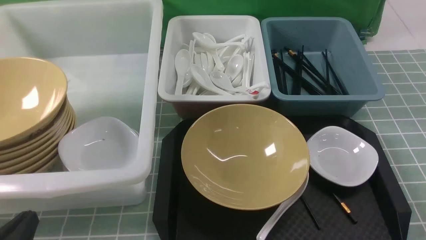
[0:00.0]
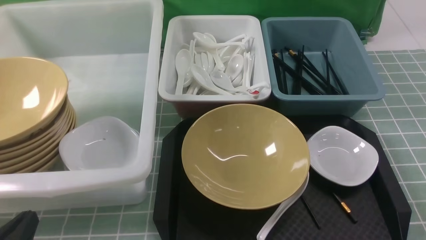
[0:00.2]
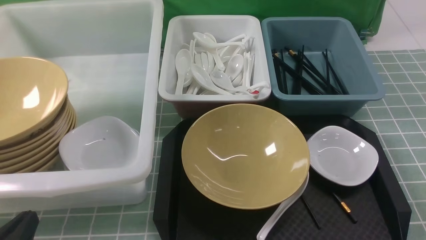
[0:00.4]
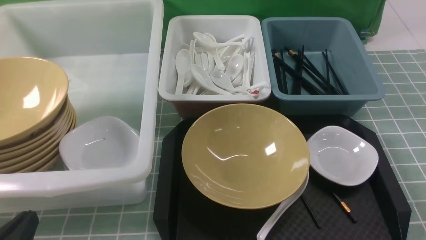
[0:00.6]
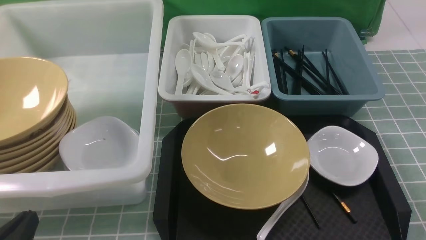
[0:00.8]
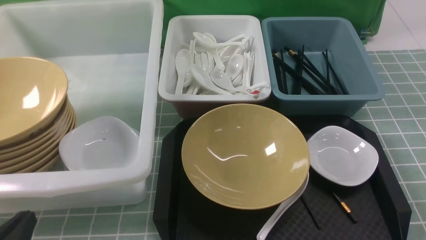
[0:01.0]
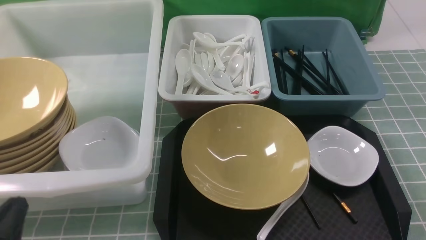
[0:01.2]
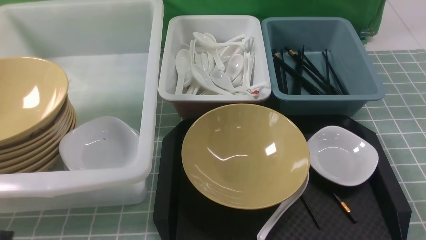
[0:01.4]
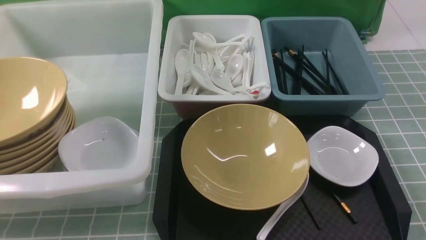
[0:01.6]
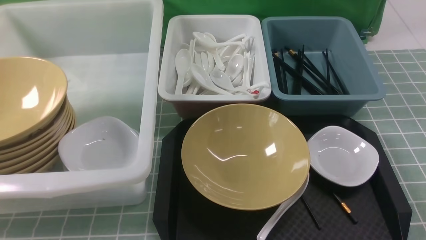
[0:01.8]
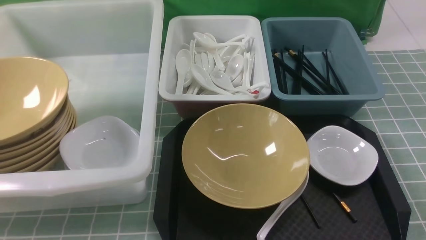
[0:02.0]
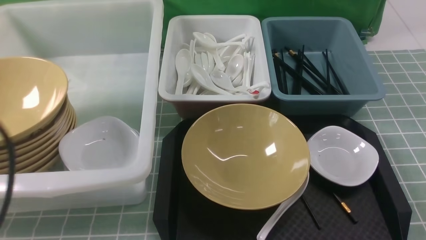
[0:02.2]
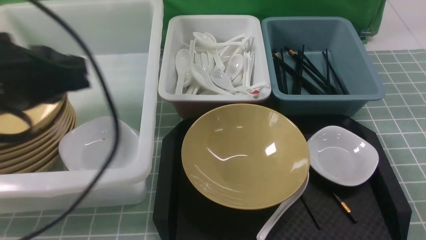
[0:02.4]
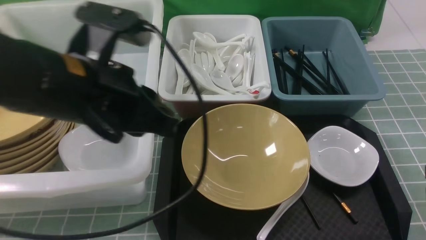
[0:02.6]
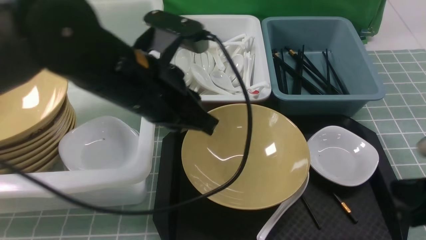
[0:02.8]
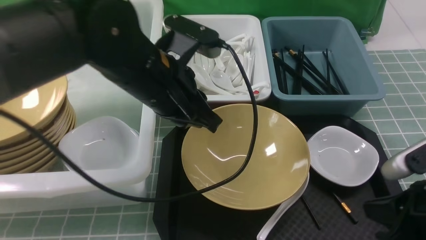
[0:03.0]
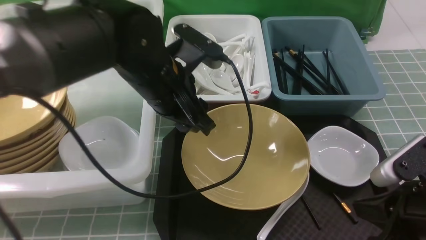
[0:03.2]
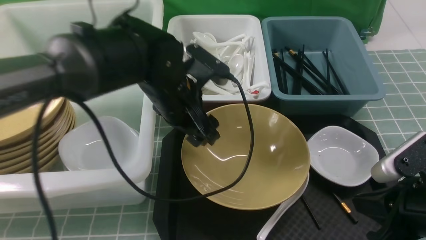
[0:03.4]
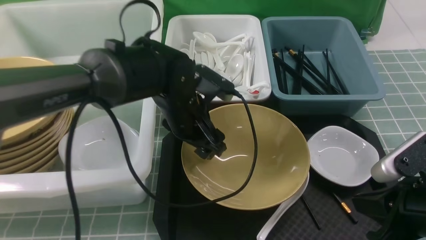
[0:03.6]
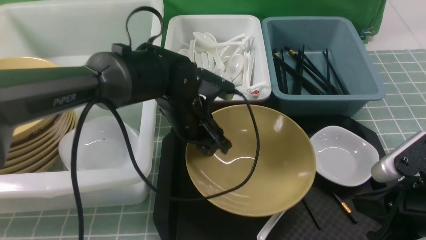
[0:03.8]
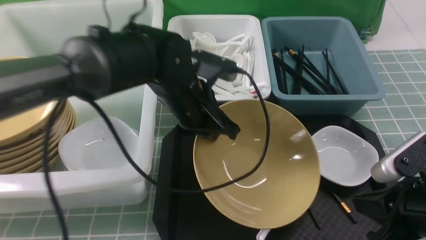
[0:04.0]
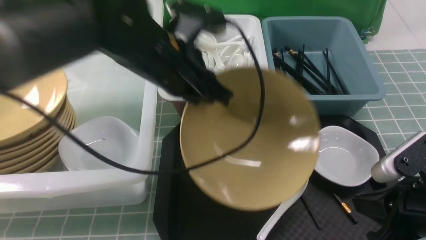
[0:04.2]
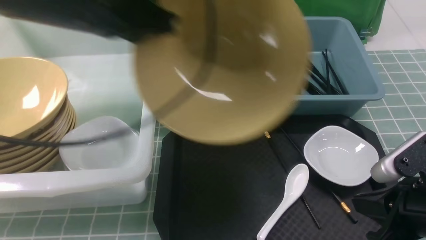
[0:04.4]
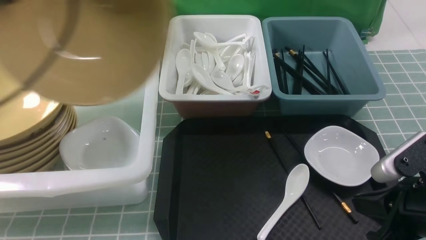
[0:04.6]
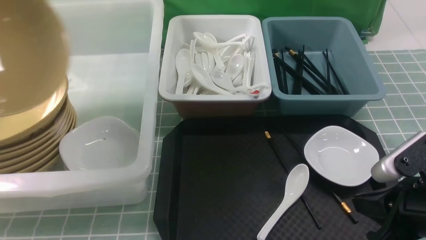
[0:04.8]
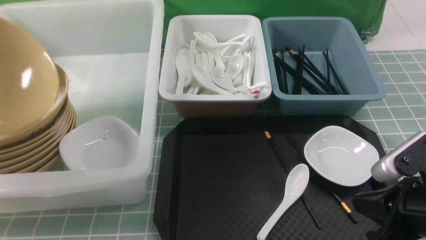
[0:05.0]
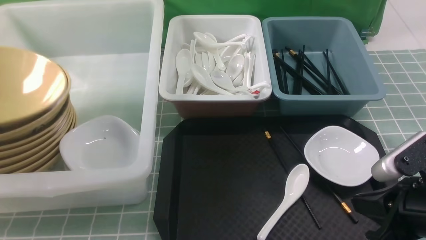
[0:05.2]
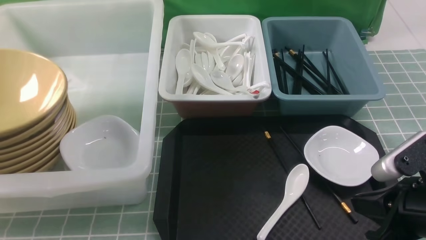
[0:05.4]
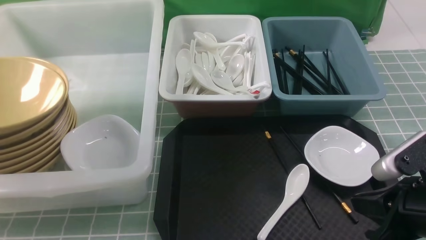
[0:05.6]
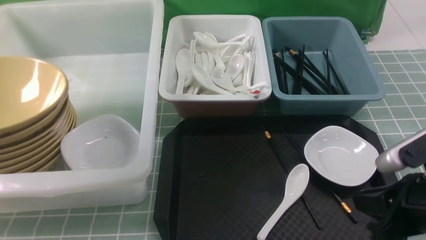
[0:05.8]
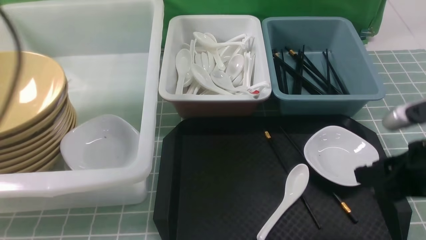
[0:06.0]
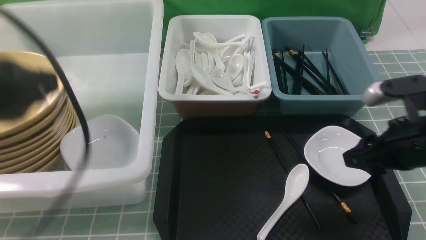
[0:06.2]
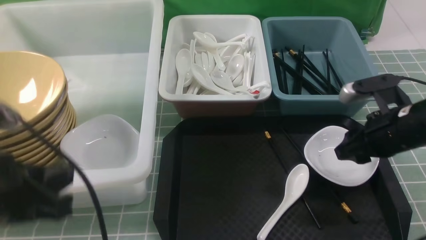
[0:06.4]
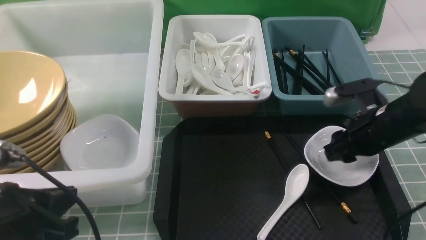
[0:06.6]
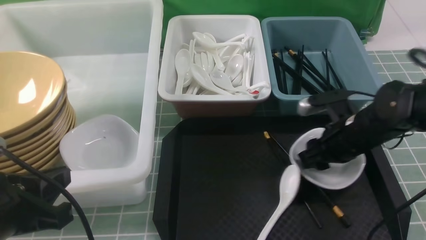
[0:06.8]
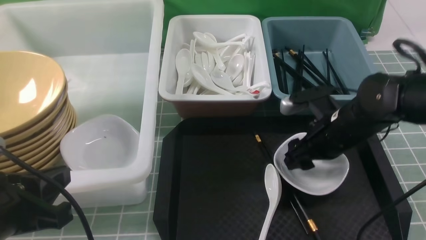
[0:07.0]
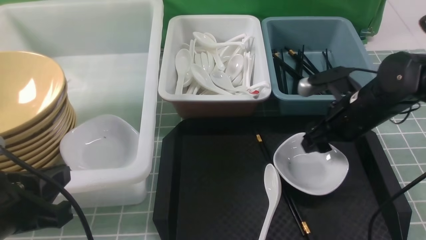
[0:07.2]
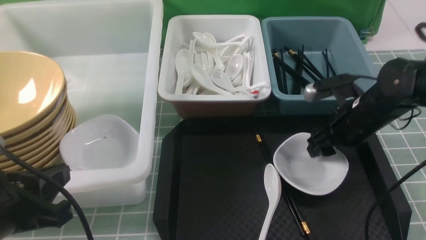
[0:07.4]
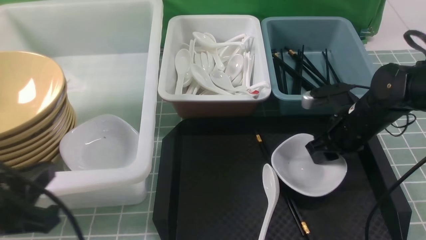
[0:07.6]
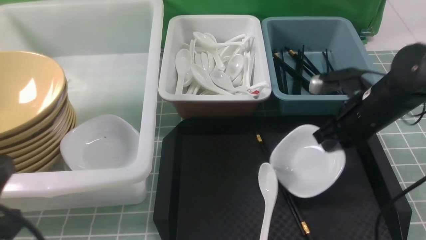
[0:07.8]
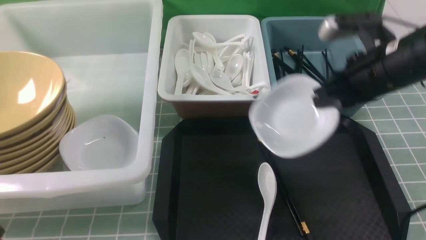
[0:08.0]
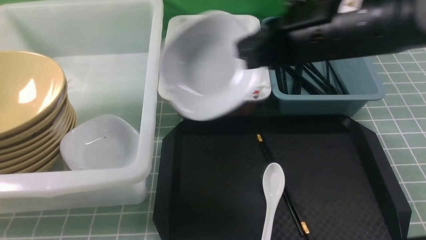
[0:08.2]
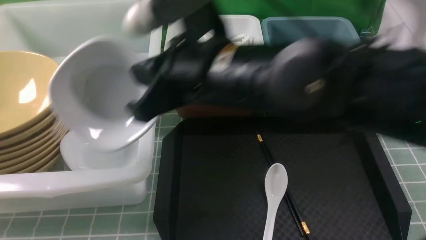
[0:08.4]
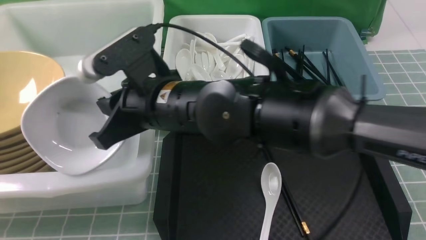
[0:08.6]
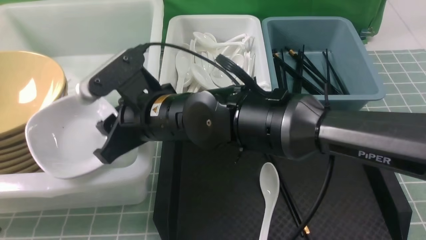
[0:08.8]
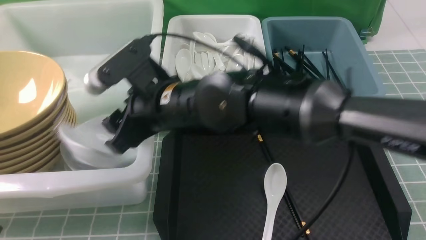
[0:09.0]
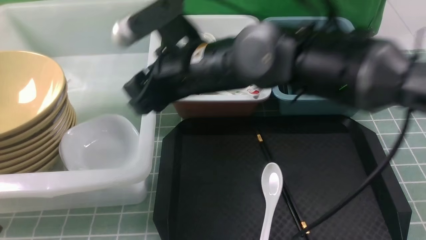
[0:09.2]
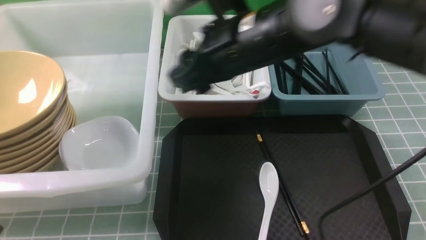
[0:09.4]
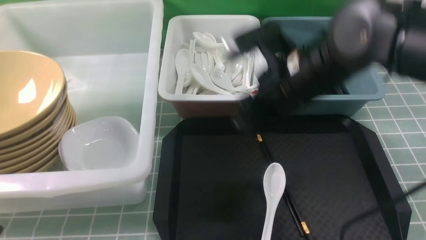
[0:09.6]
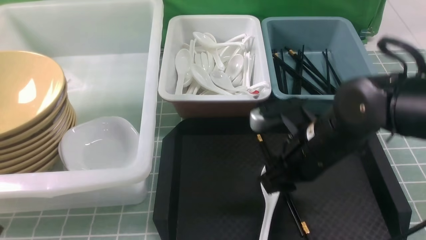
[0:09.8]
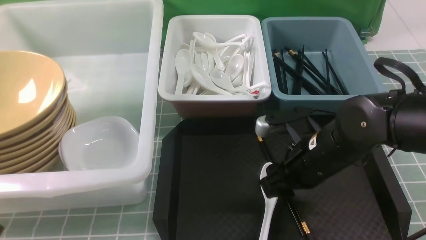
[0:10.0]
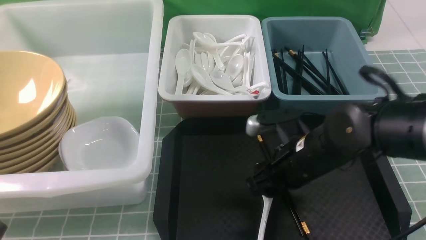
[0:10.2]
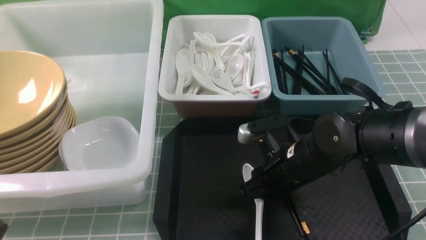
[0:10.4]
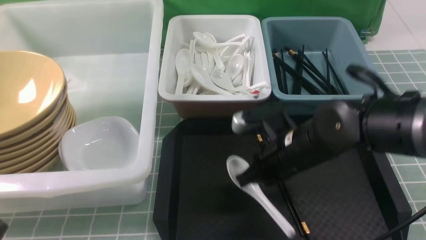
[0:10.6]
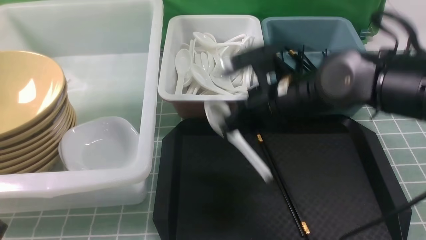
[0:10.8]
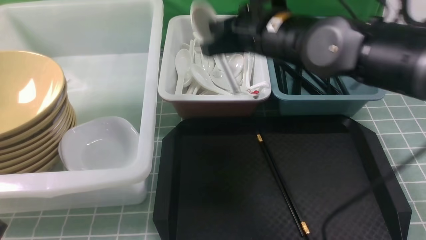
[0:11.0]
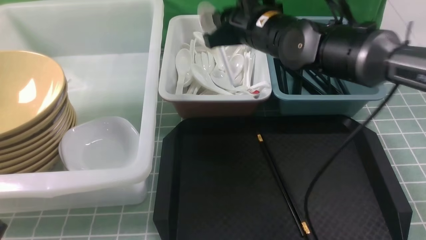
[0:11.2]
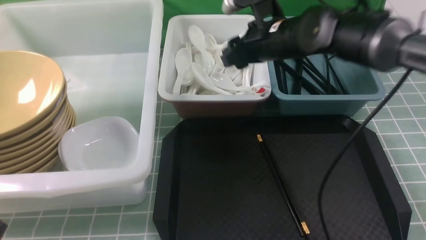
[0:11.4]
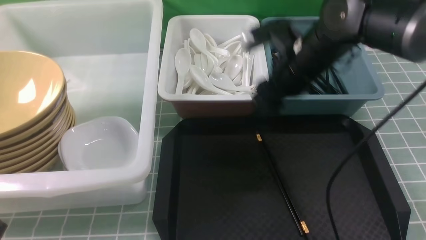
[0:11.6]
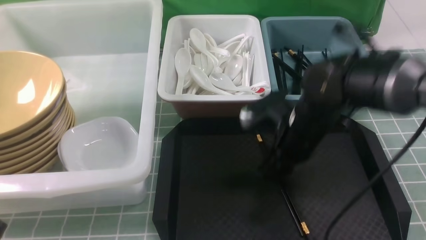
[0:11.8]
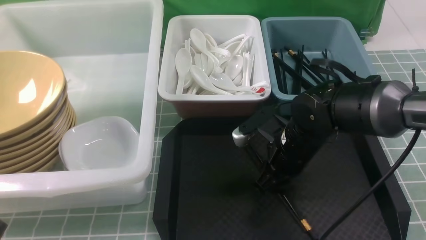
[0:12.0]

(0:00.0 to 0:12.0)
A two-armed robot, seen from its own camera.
Task of the whole recording: on blue table put chopsticks spoon bowls plates into blue grey white boxes.
Step, 0:00.0 - 0:04.0: use the left arm to grab the yellow noodle bowl on the left.
Step, 0:04.2 - 0:05.4: use the left arm to put the noodle bowl into the large storage box on the left.
Step, 0:05.6 - 0:07.8: use the right arm to grab the plate.
Step, 0:08.0 - 0:09.0: use the right arm to put the plate into the large storage box on the left.
Step, 0:09.4 - 0:10.4: use the right arm to grab the soup spoon in the middle.
Step, 0:10.6 - 0:11.4: use the right arm to put the soup spoon into the small storage box in the middle.
0:00.0 - 0:01.6: The left gripper travels upward by roughly 10 cm.
0:01.6 - 0:03.0: The left gripper moves forward and to the right, roughly 30 cm. The right gripper shifts some 10 cm forward and to the left, and closes its fingers.
0:03.0 - 0:04.4: The left gripper heads to the left and upward, covering some 15 cm, and opens and closes again.
0:04.4 - 0:06.0: The left gripper is displaced backward and to the left by some 15 cm, and opens up; the right gripper opens its fingers.
0:06.0 - 0:07.6: The left gripper travels downward and backward by approximately 15 cm, and closes, while the right gripper travels forward and downward by some 15 cm, and opens, then closes again.
0:07.6 - 0:09.0: The right gripper travels to the left by some 25 cm, and closes, then opens again.
0:09.0 - 0:10.4: The right gripper goes roughly 20 cm to the right and downward, and closes.
0:10.4 - 0:12.0: The right gripper travels forward and back again, about 15 cm each way, and closes and opens again.

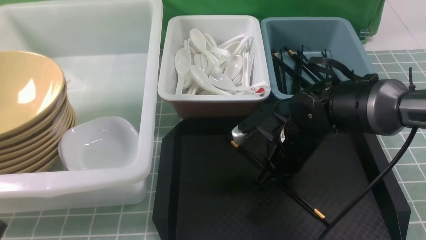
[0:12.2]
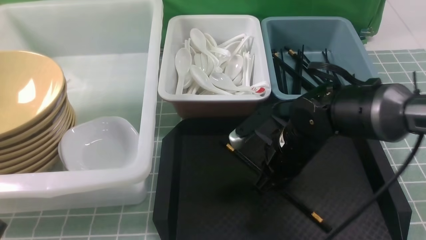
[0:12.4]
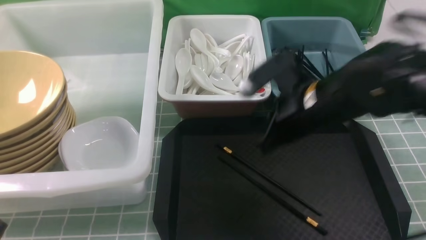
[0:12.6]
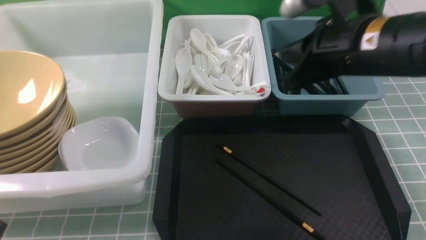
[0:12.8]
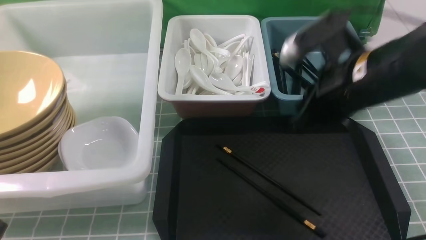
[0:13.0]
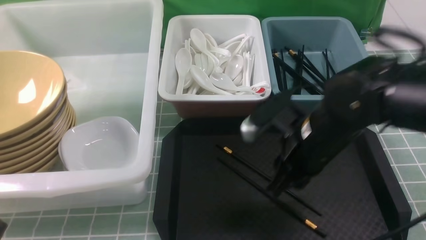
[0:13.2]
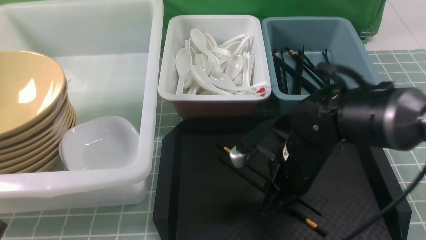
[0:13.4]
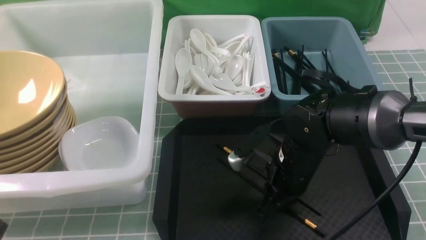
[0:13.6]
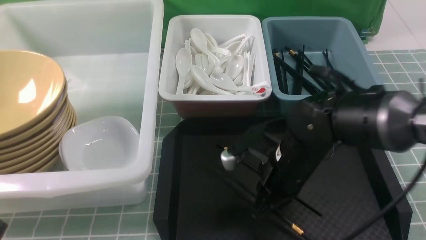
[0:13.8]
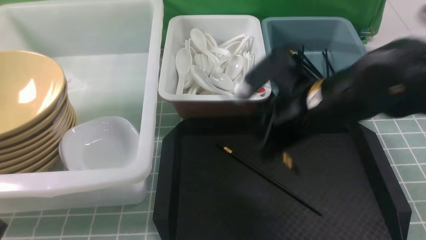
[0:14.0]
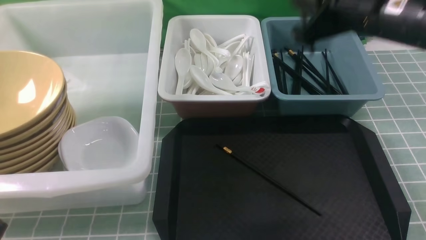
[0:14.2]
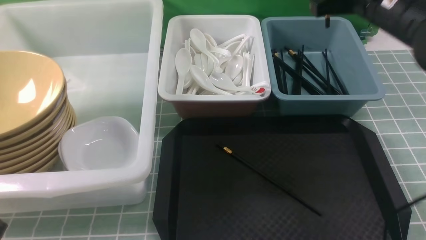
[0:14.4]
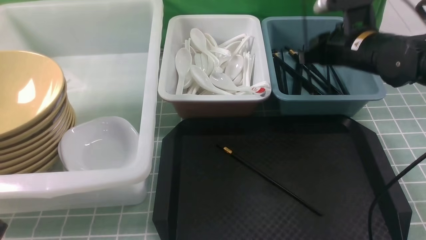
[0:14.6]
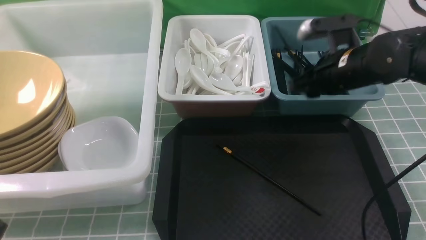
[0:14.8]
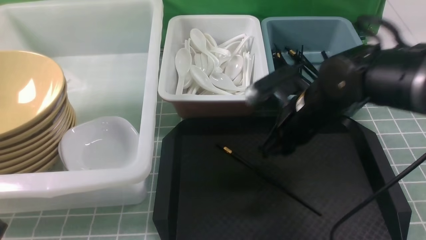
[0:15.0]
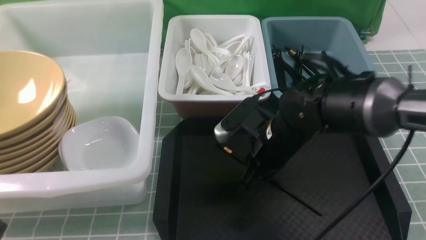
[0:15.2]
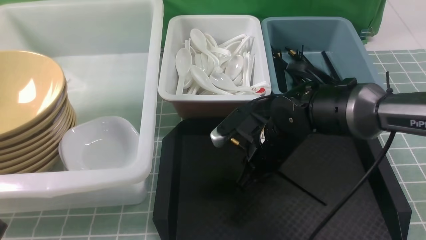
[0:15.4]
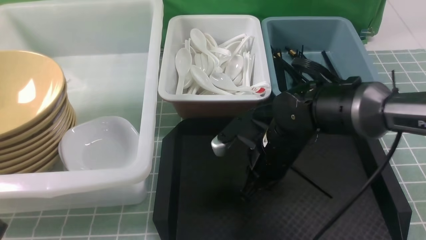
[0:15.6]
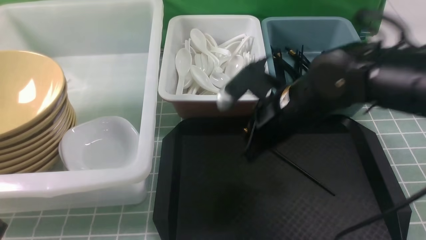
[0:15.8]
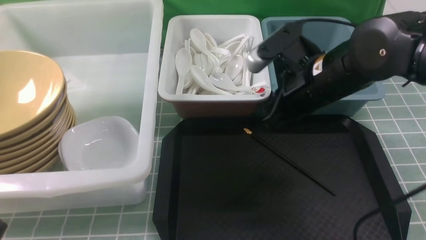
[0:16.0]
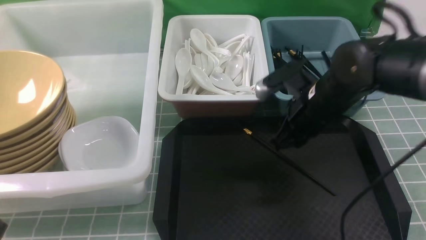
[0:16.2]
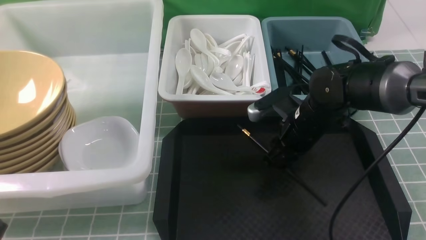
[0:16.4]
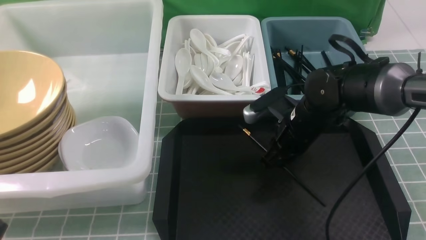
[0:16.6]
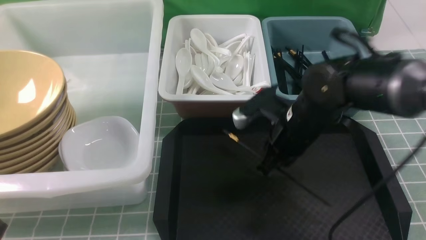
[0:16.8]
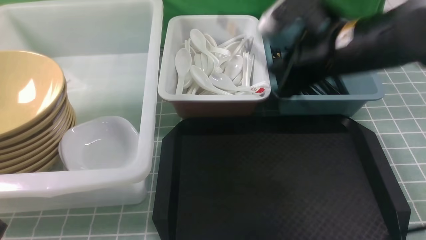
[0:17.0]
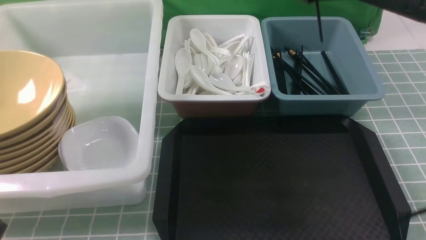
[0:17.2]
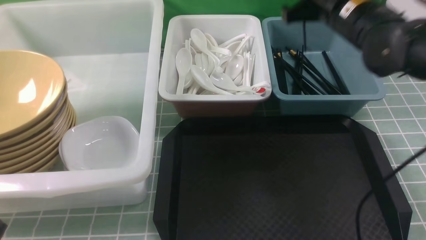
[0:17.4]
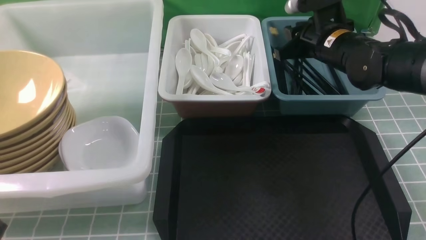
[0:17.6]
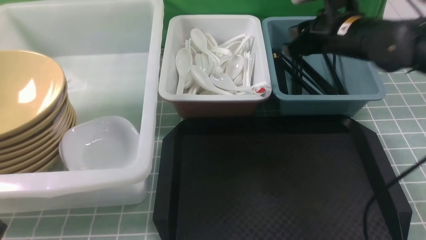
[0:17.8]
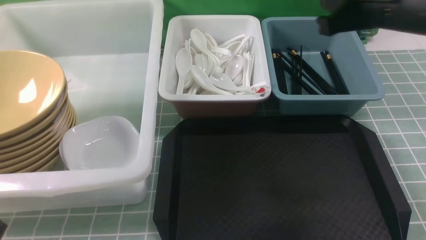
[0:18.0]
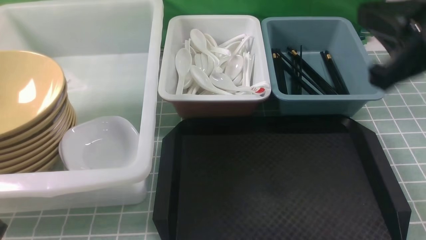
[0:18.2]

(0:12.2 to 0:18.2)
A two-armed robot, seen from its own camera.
Task of the whole recording: on blue table put chopsticks spoon bowls plates into blue grey white boxes.
Step, 0:12.2 - 0:13.8: use the right arm to grab a chopstick.
Step, 0:14.2 - 0:14.6: use the right arm to put a chopstick into the small storage box on the right.
Step, 0:14.8 - 0:16.6: use the right arm to grab a chopstick.
Step, 0:17.0 - 0:17.8: use the right arm to put a chopstick into the small storage box on the right.
0:12.2 - 0:13.8: The right gripper goes up and down, roughly 15 cm each way, reversing 2 times.
0:13.8 - 0:15.2: The right gripper moves about 15 cm upward and comes back.
0:15.2 - 0:16.6: The right gripper goes upward and returns, some 5 cm each way.
0:16.6 - 0:18.2: The right gripper goes some 25 cm upward, backward and to the right.
